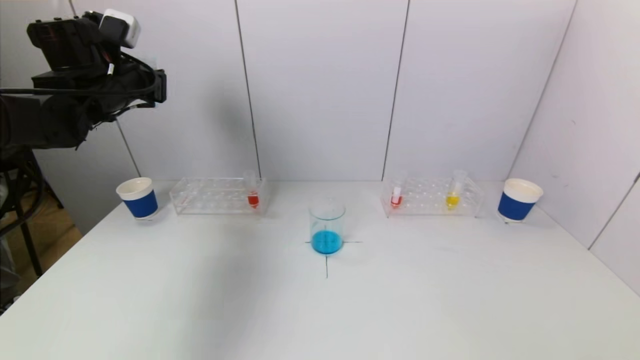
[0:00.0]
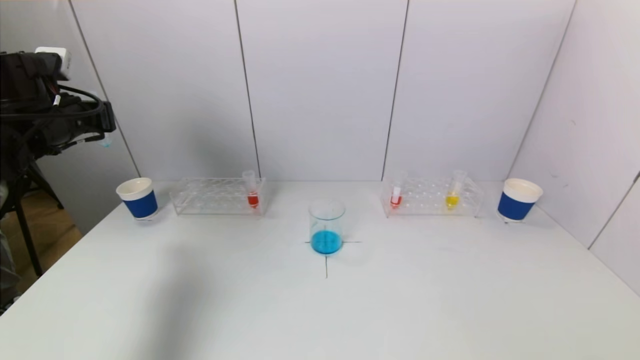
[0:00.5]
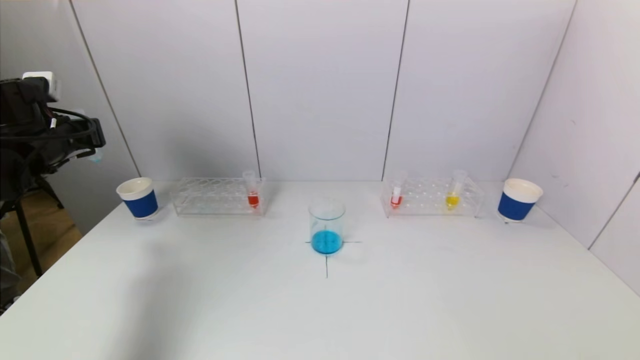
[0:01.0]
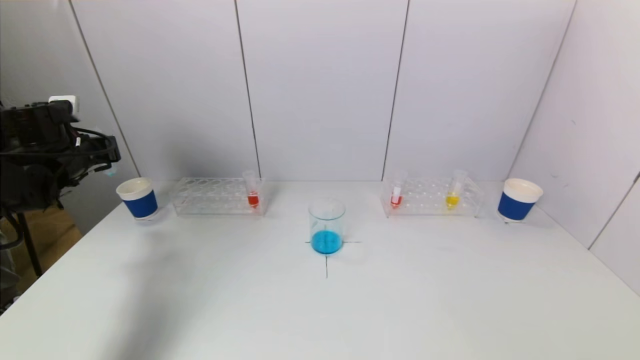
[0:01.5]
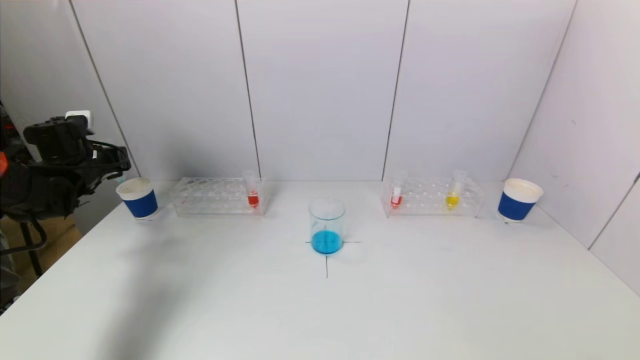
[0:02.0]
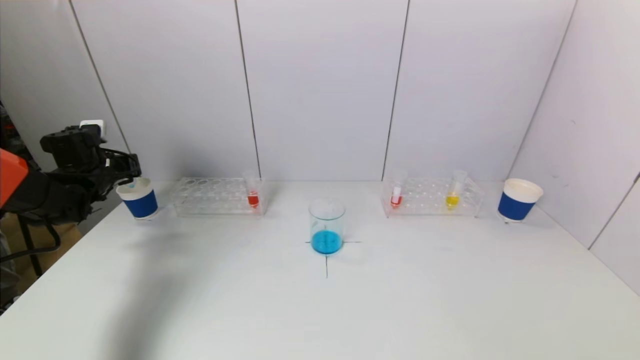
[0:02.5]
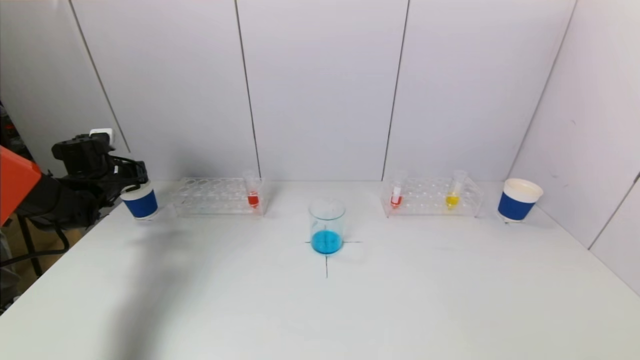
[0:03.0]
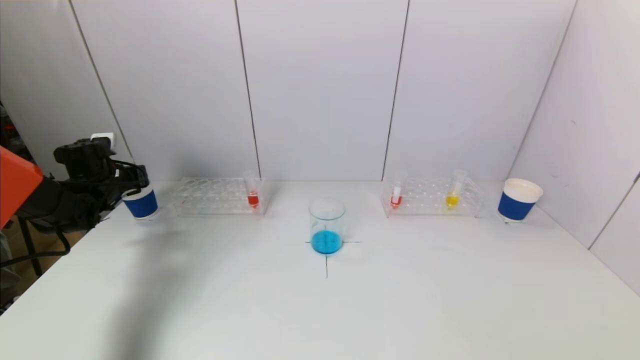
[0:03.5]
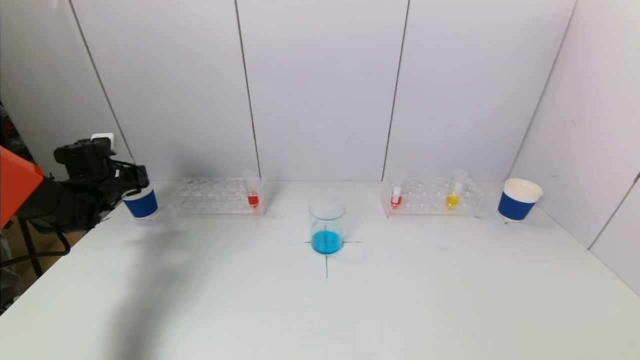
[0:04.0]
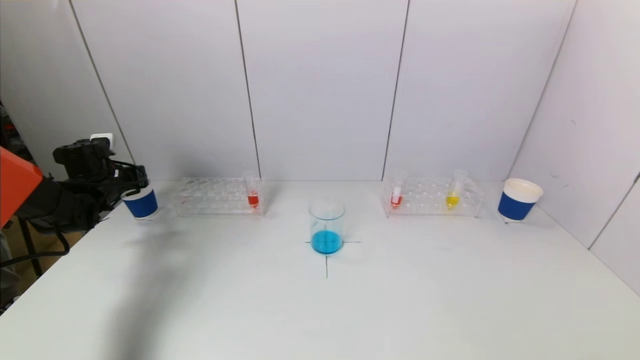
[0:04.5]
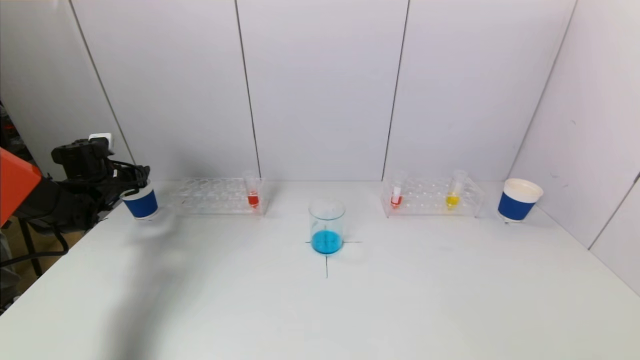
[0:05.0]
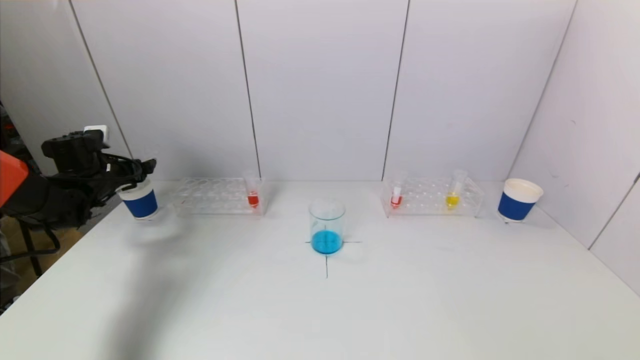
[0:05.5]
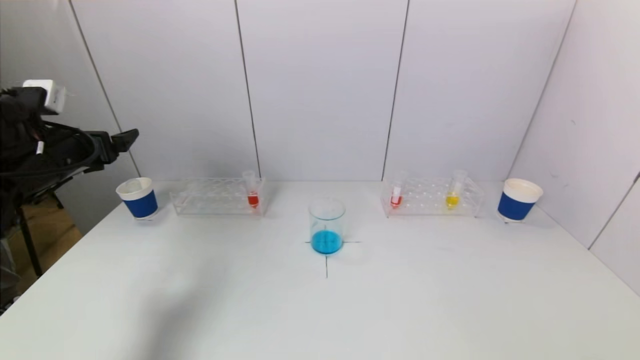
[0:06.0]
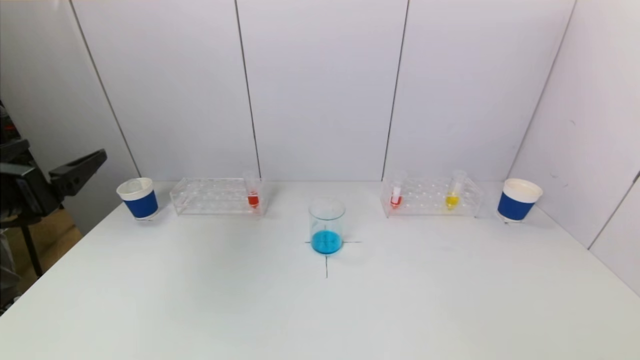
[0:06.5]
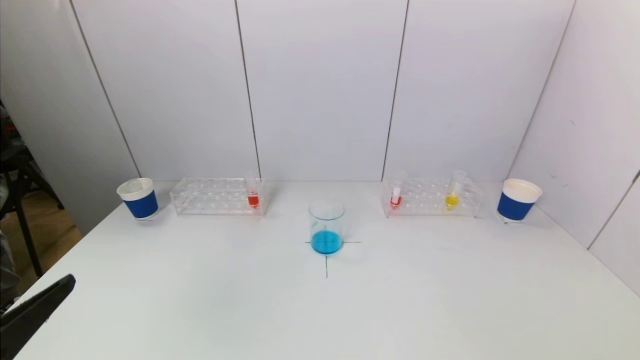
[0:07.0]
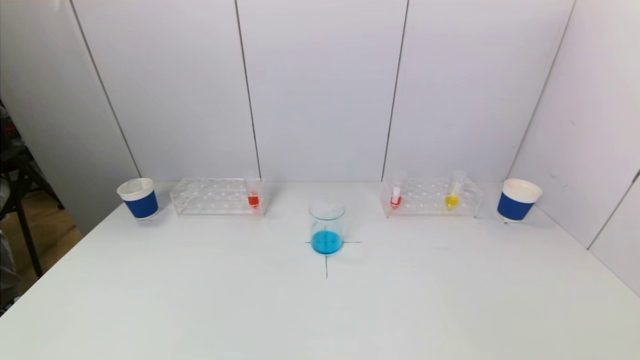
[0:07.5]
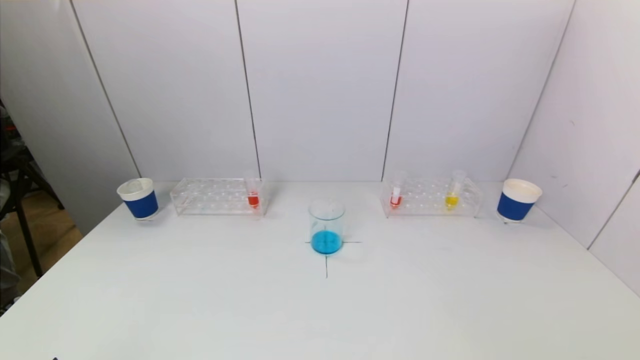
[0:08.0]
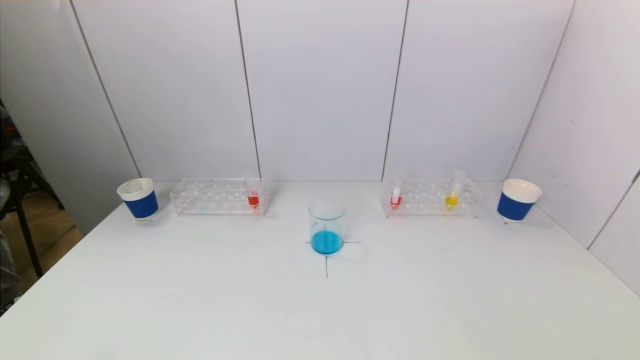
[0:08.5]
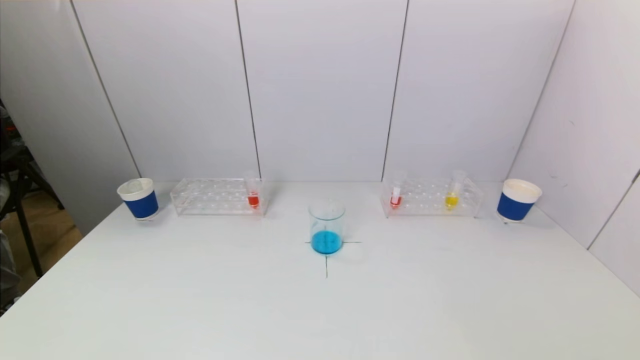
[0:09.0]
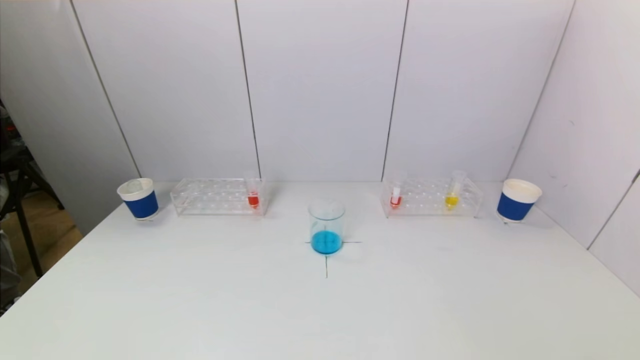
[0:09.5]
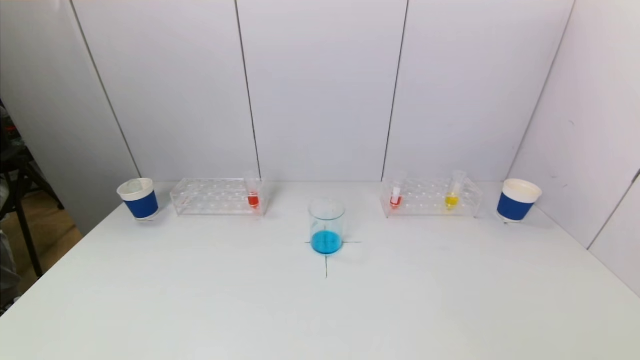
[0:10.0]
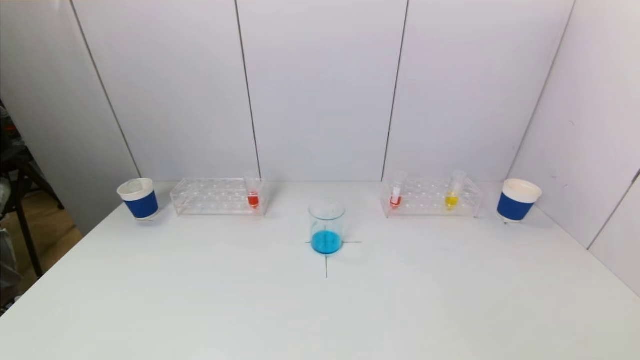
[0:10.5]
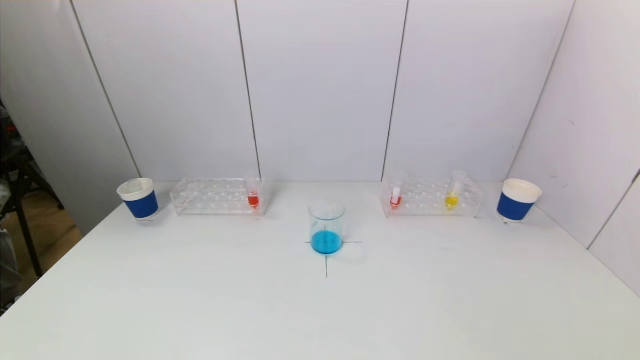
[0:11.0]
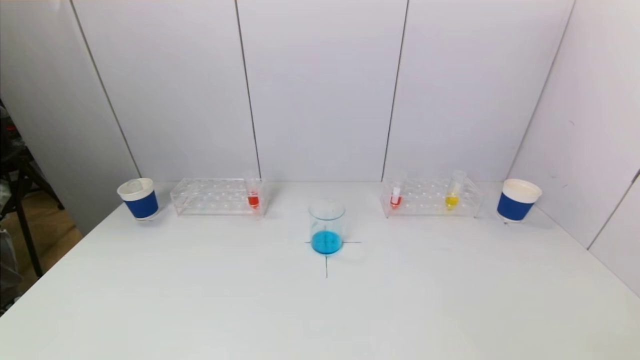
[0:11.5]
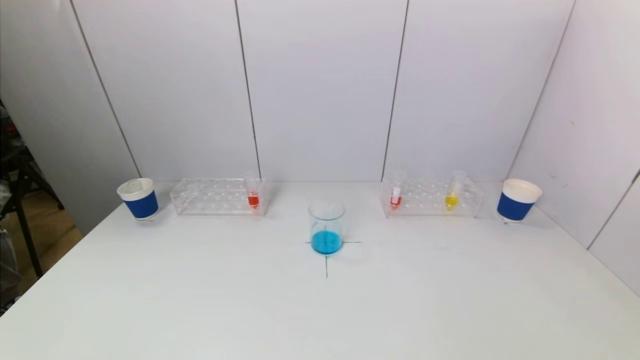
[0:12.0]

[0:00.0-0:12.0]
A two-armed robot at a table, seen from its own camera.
Task of the whole recording: pick up a test tube with pigment on left test tube rack and a test tube with pigment on right test tube rack by grippers and pour them into the beaker.
Step, 0:00.0 to 0:05.0: Place the test tube into the paper cup with the left gripper.
0:00.0 to 0:02.0: The left gripper is displaced downward and to the left by some 20 cm.
0:02.0 to 0:04.0: The grippers move only a little.
0:04.0 to 0:06.0: The left gripper travels backward and upward by roughly 20 cm, and opens.
0:06.0 to 0:08.0: The left gripper travels backward by approximately 30 cm.

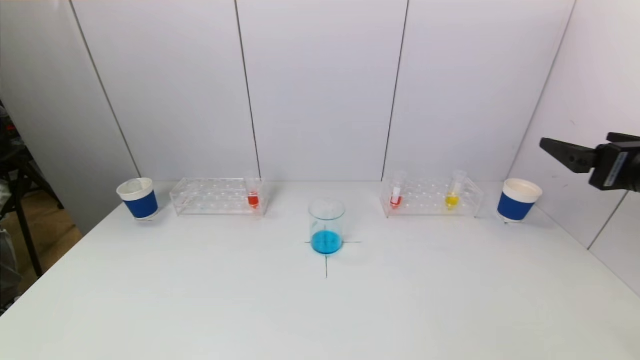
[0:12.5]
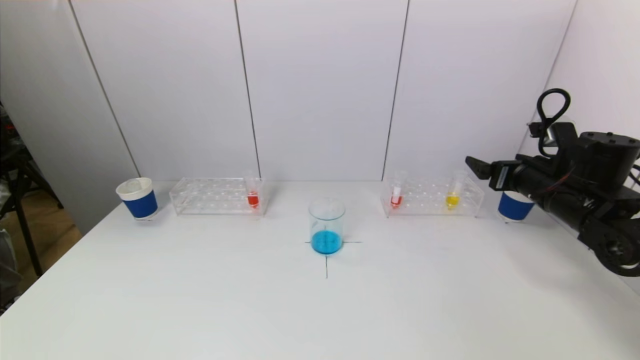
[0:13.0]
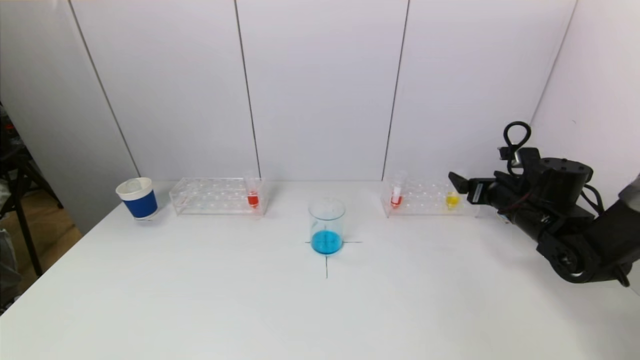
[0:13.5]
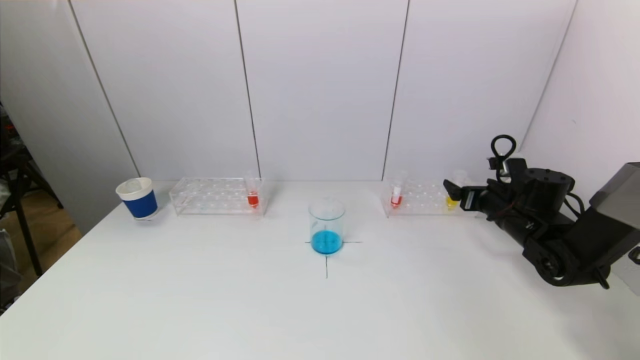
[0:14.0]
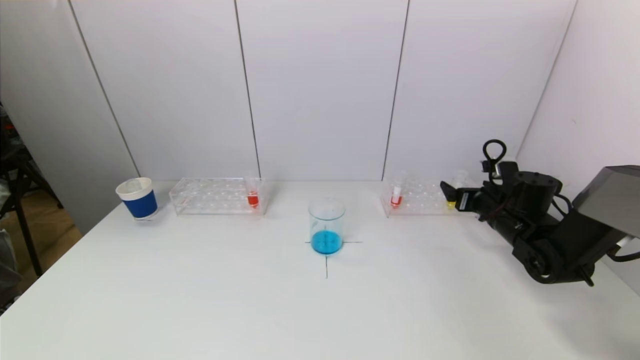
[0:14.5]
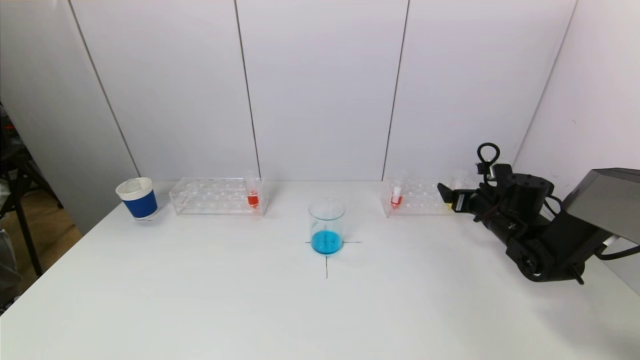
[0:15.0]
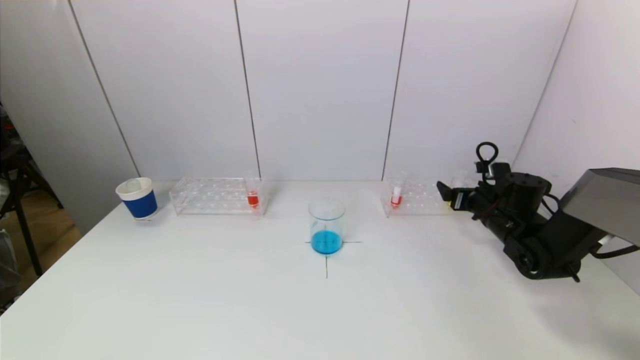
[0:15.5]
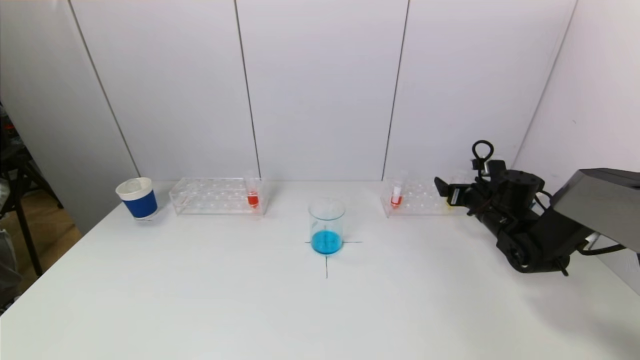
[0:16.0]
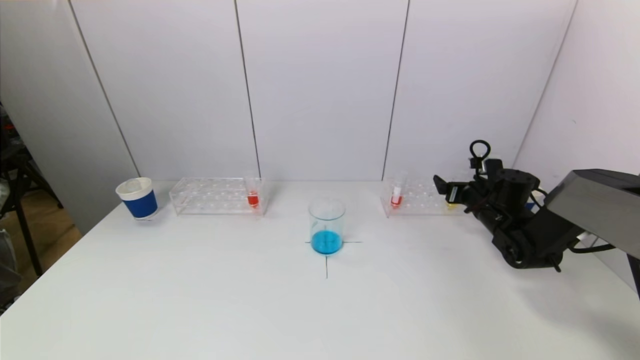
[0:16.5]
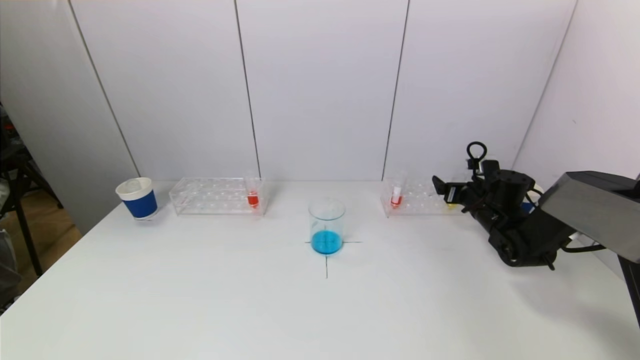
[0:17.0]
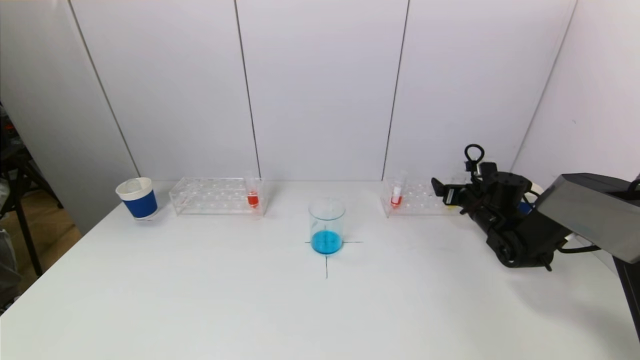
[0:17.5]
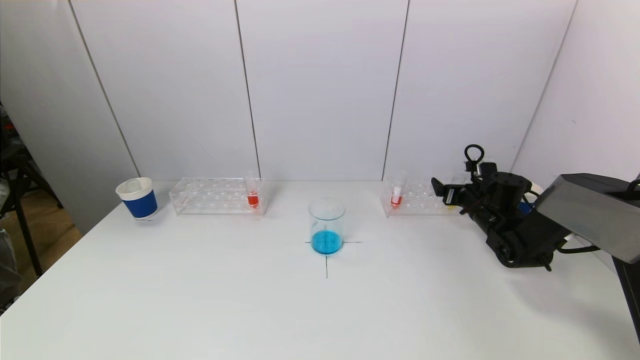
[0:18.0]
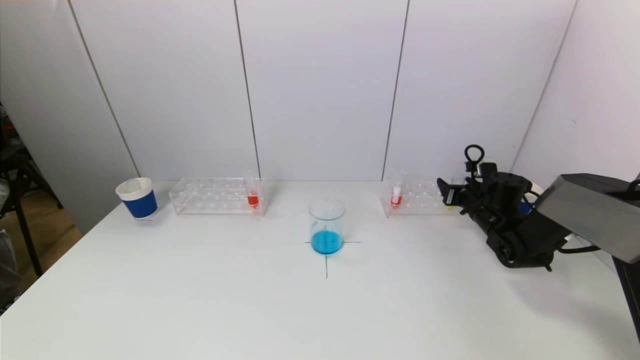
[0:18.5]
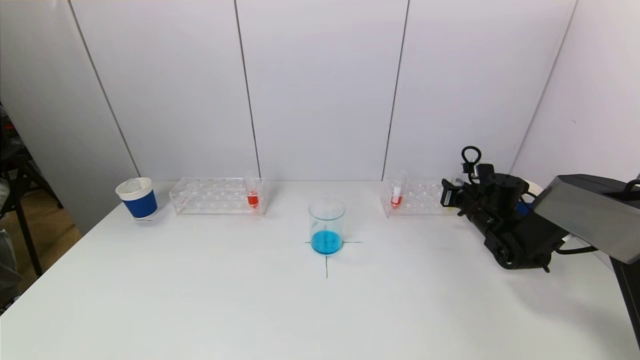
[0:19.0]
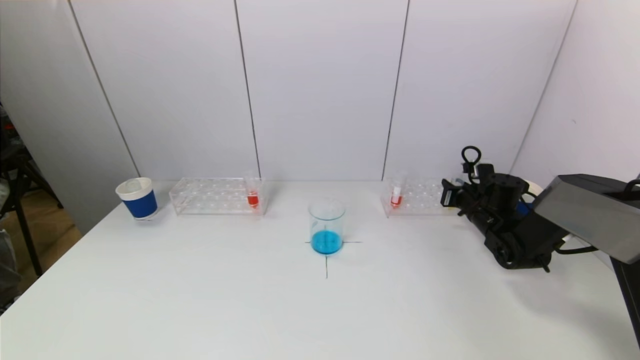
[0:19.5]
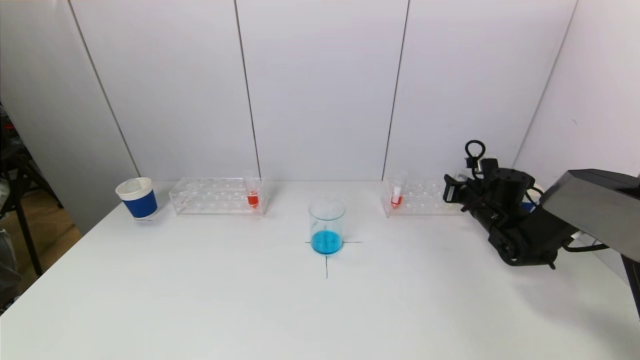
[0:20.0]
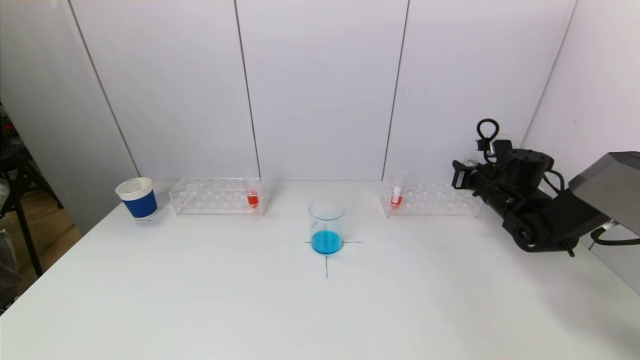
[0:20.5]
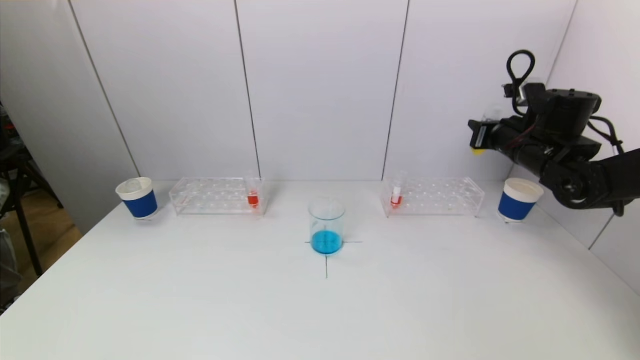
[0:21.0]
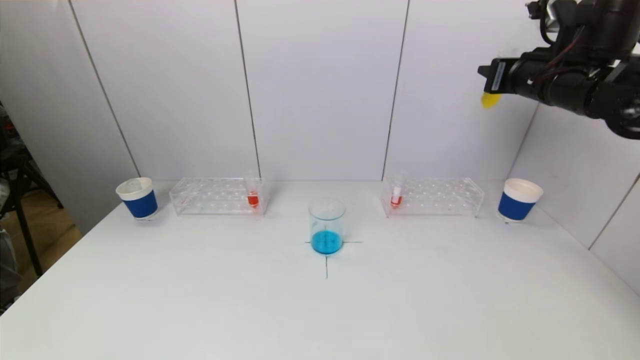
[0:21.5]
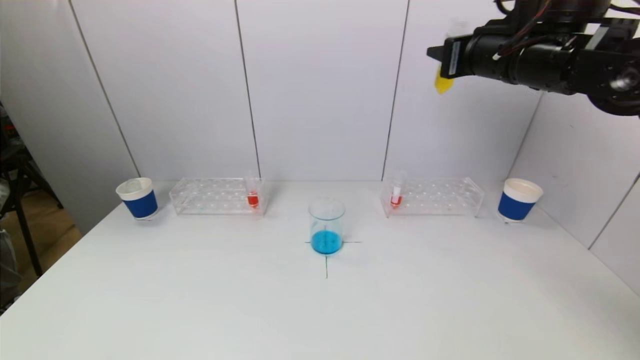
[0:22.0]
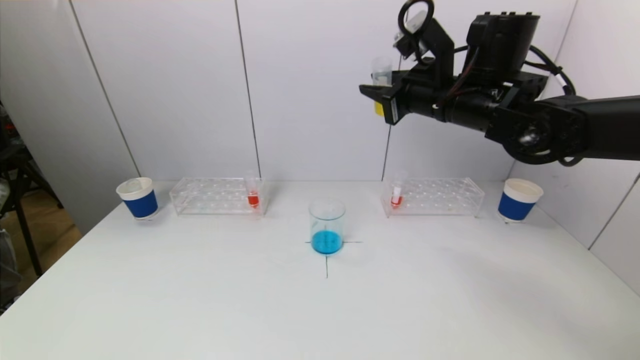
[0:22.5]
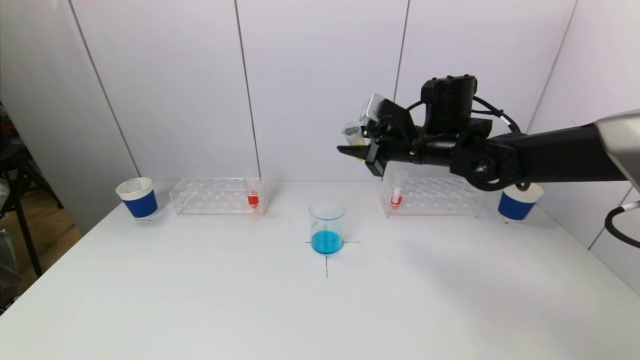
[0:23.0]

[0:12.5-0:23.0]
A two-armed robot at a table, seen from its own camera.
Task of the whole recording: pick up a test tube with pigment on left test tube rack and a test tube with pigment on right test tube rack by grippers and pour them into the beaker.
Step, 0:12.5 to 0:19.0: Grasp the yellow reagent with the right gripper.
0:12.5 to 0:14.5: The right gripper travels downward and forward by approximately 25 cm.
0:14.5 to 0:16.5: There are only small adjustments of the grippers.
0:16.5 to 0:19.0: The right gripper closes.
0:19.0 to 0:21.0: The right gripper travels upward by roughly 15 cm.
0:21.0 to 0:23.0: The right gripper is displaced to the left by about 20 cm.
